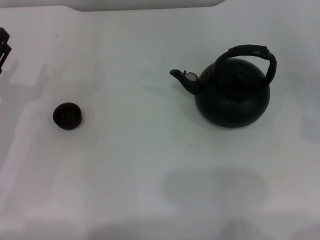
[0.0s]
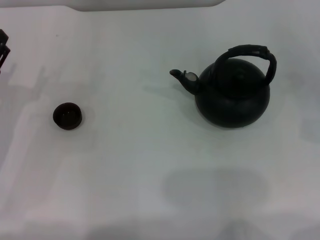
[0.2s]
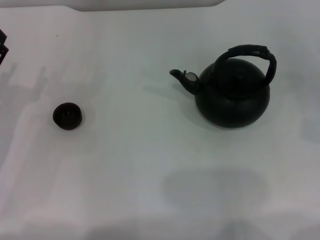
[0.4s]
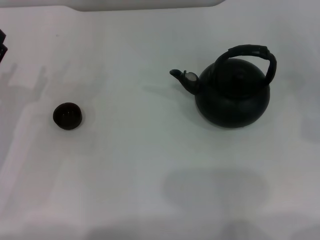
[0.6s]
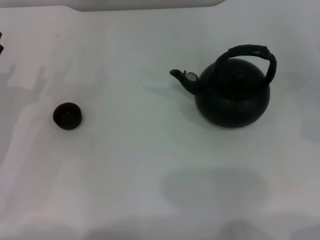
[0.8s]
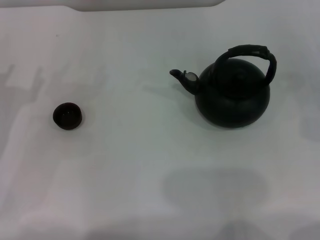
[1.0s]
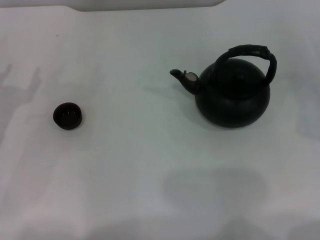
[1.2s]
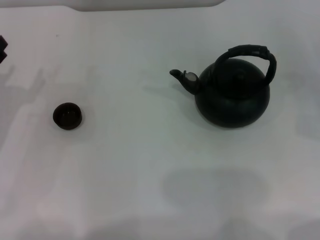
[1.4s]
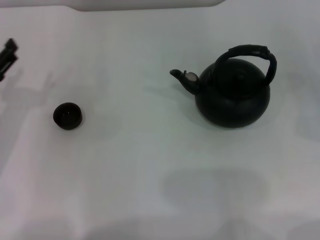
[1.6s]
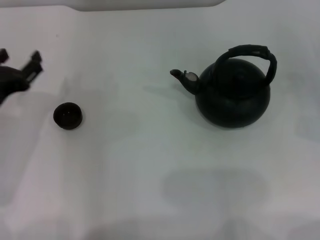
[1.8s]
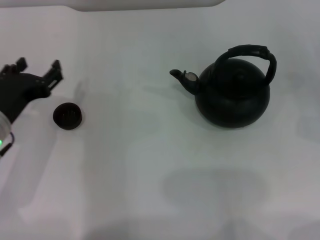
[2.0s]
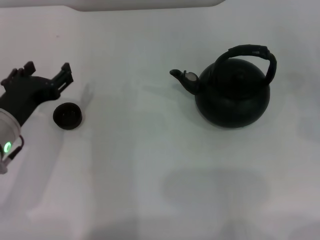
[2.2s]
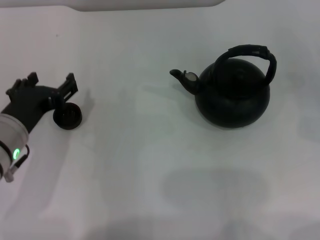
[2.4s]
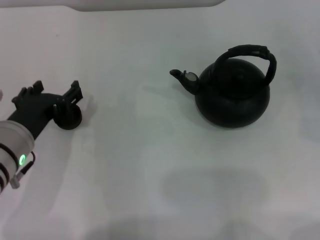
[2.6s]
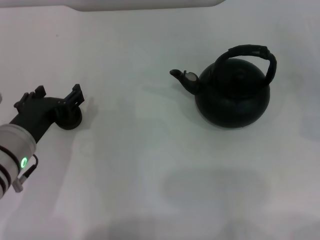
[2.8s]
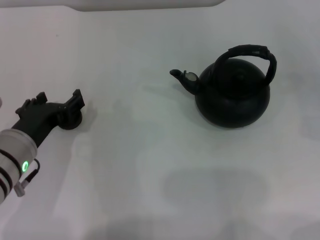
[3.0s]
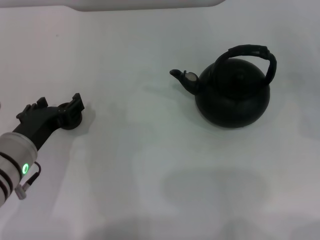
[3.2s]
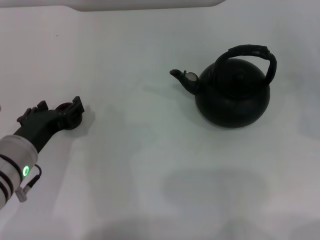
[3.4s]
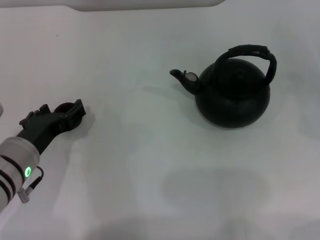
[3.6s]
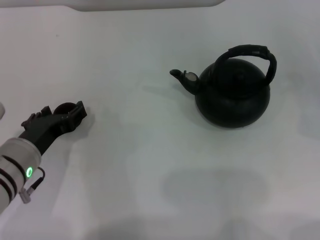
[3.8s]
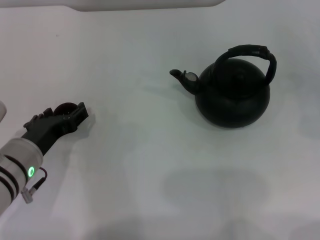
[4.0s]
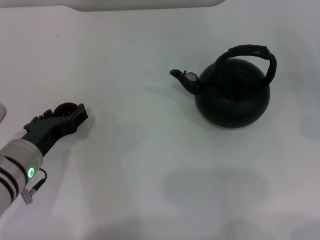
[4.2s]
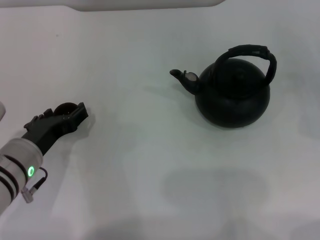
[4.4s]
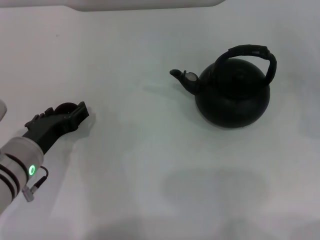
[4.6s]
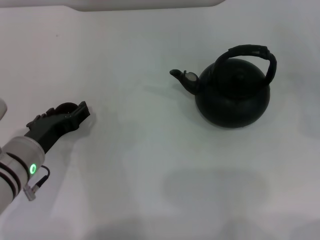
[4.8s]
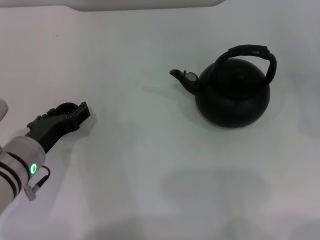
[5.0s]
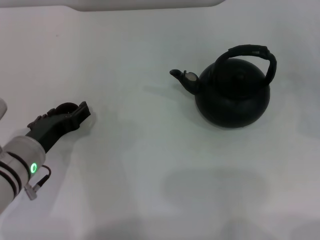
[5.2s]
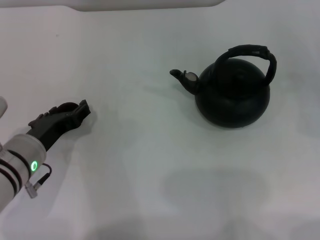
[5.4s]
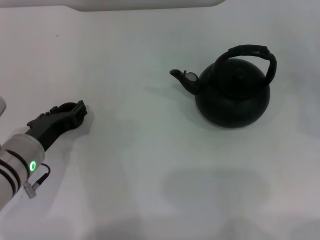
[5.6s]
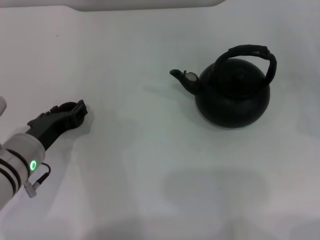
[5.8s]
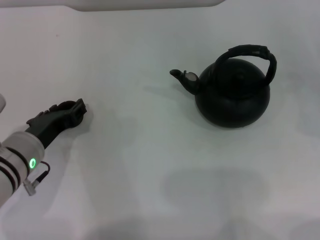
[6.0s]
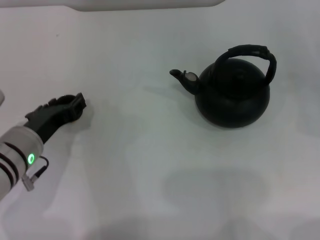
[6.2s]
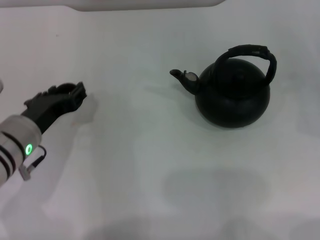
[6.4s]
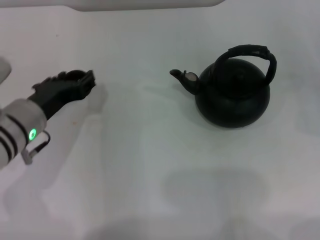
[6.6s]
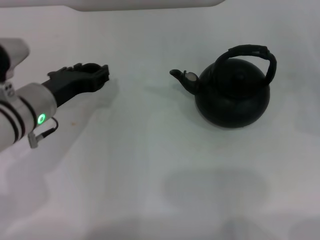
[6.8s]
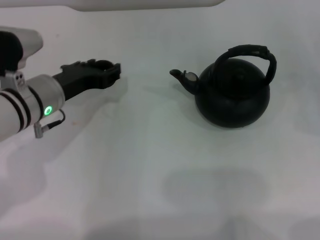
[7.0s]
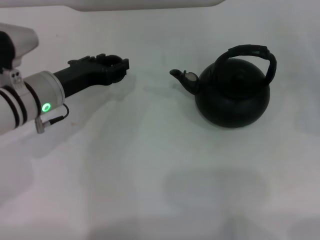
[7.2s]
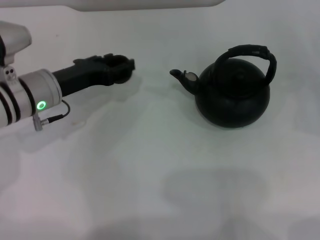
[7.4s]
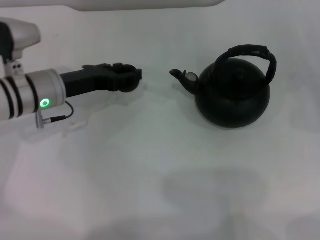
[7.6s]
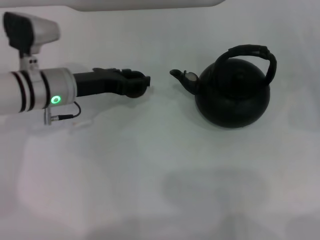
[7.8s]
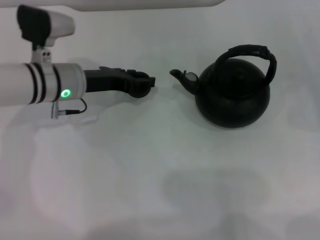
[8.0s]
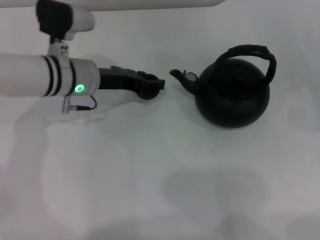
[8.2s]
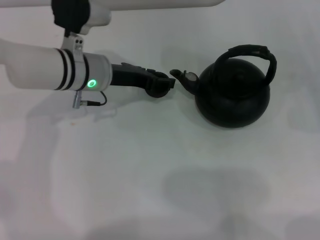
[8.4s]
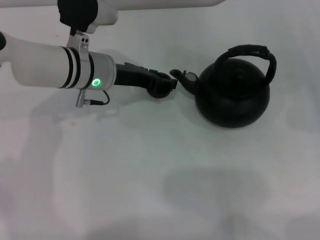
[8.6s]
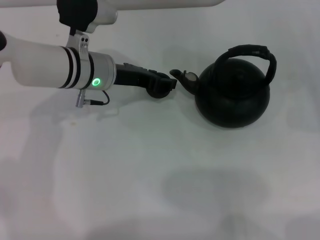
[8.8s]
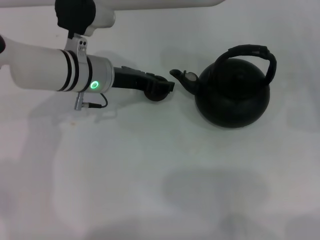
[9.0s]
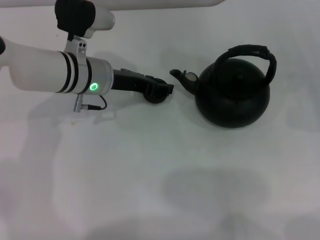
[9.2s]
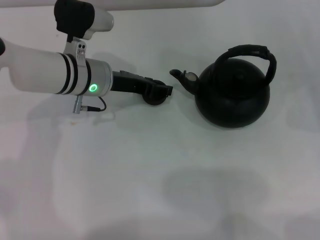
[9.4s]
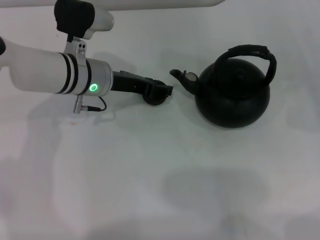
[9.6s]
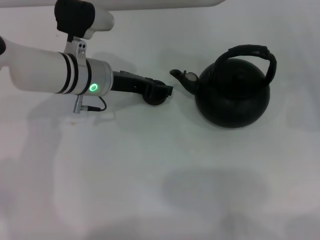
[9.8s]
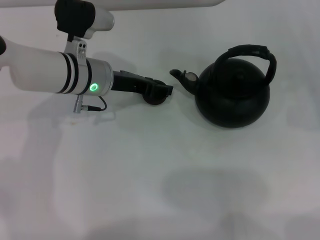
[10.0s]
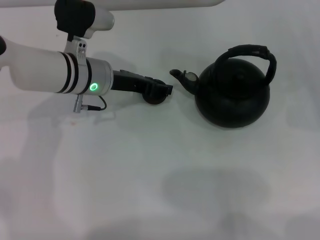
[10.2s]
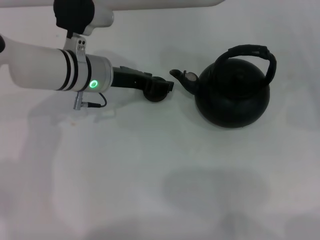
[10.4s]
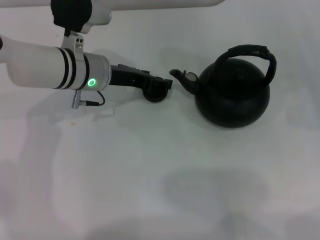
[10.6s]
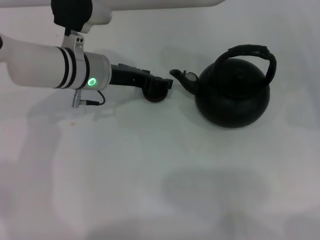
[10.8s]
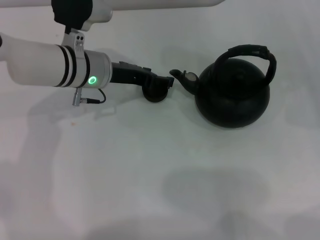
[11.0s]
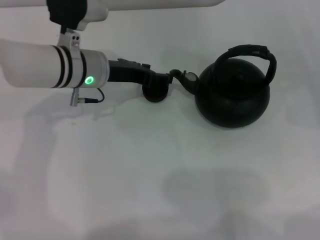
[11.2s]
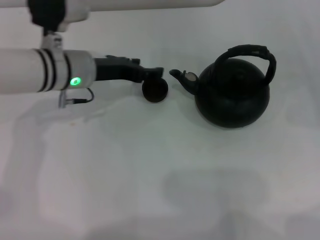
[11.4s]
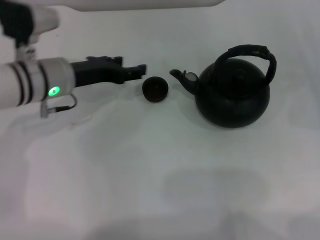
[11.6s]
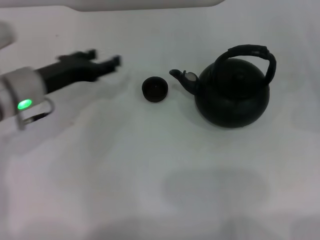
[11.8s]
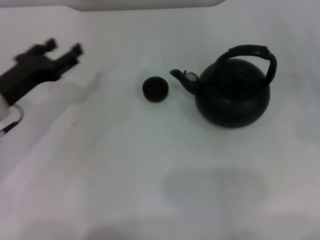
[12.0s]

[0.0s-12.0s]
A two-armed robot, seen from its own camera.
Task of the whole recording: Grasp the handle of the teapot with one hand and pour tea into the teacup.
Step, 0.0s to 6.4s: Pick up the teacup with the left gripper.
Step, 6.6s to 11.4s: Place the teacup in the center of view with the left gripper.
1.6s to 3.0s: The left gripper travels to the right by about 10 cm, and opens its fingers.
3.0s to 4.4s: The grippers move only a little.
4.4s to 6.0s: The left gripper closes.
6.0s to 7.6s: The left gripper goes approximately 10 cm forward.
7.6s to 9.0s: The left gripper heads to the right, covering roughly 10 cm.
9.0s to 10.4s: The two grippers keep their place.
10.4s to 12.0s: The left gripper shifts about 15 cm to the left and backward, and opens its fingers.

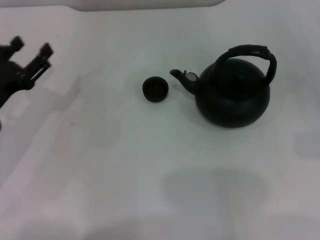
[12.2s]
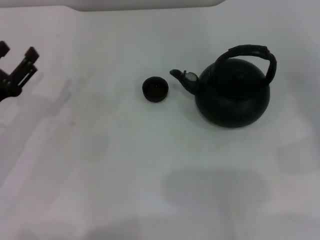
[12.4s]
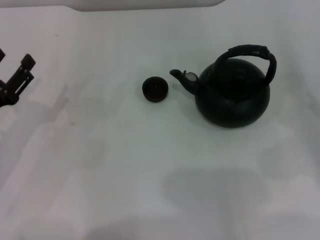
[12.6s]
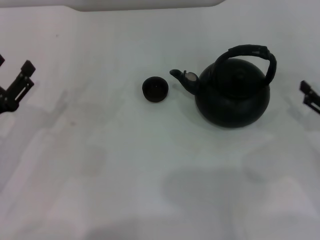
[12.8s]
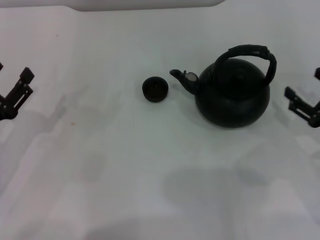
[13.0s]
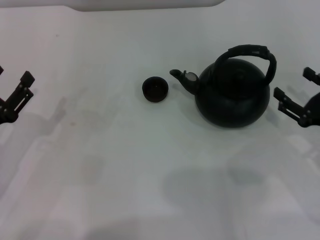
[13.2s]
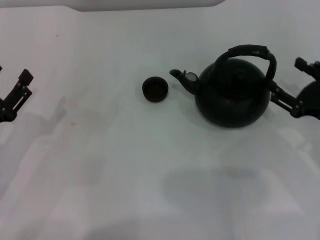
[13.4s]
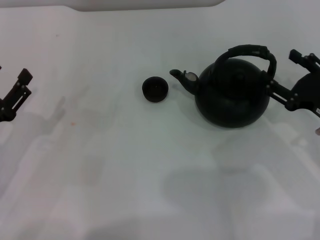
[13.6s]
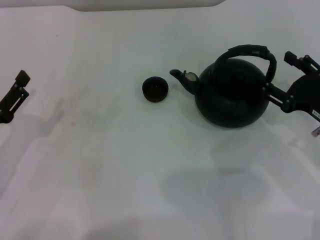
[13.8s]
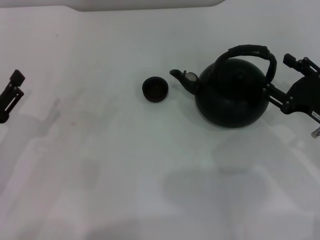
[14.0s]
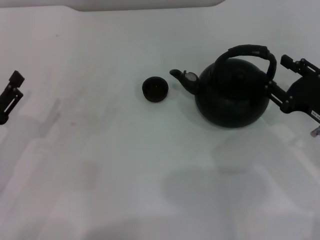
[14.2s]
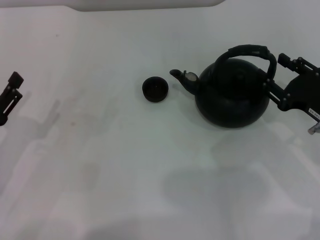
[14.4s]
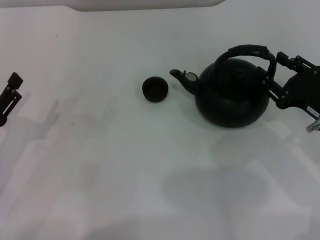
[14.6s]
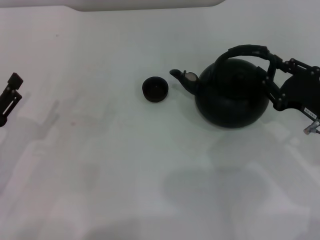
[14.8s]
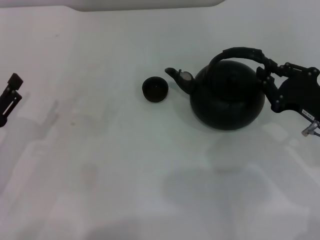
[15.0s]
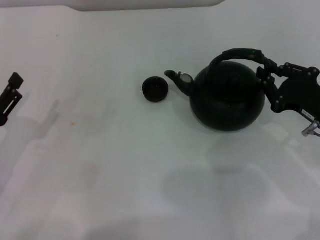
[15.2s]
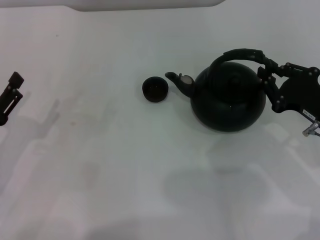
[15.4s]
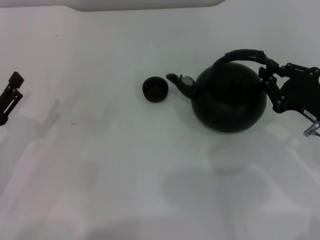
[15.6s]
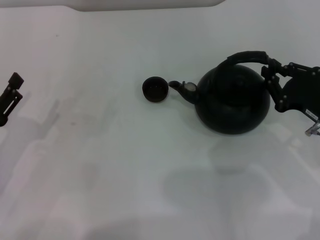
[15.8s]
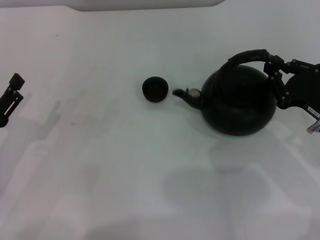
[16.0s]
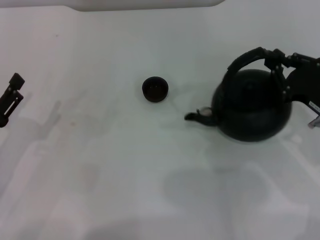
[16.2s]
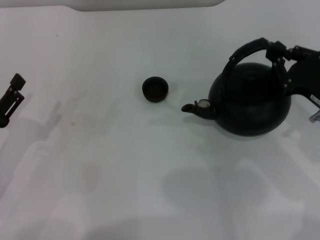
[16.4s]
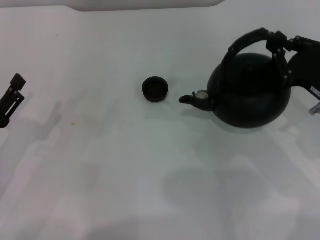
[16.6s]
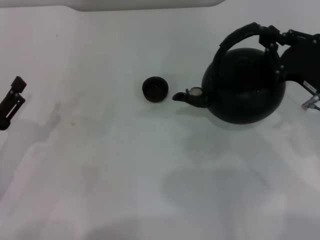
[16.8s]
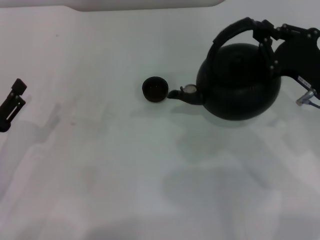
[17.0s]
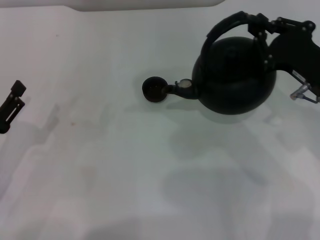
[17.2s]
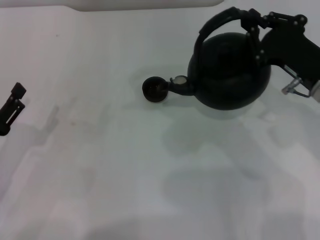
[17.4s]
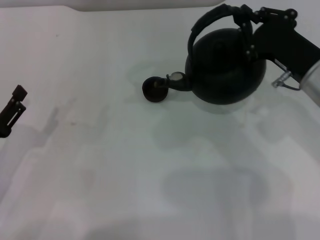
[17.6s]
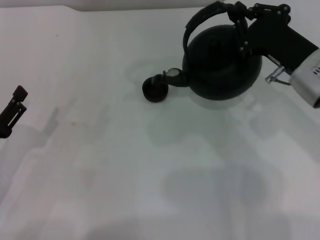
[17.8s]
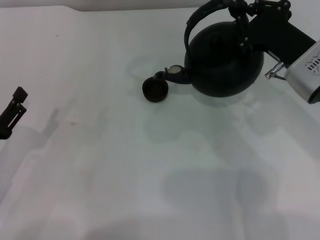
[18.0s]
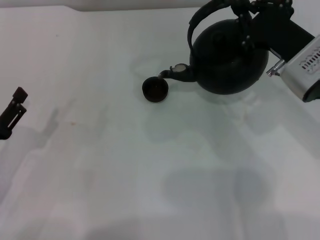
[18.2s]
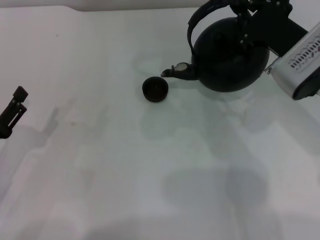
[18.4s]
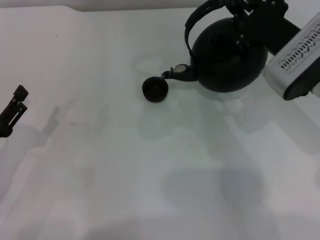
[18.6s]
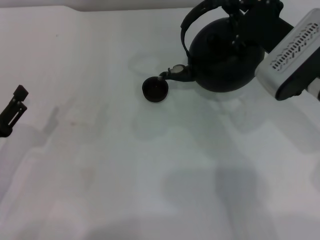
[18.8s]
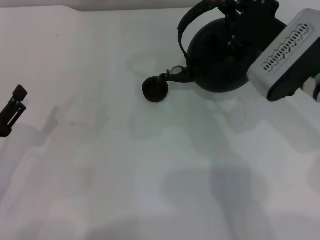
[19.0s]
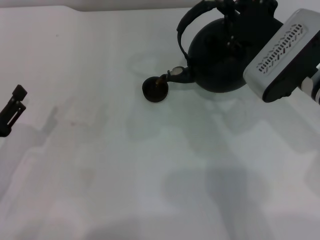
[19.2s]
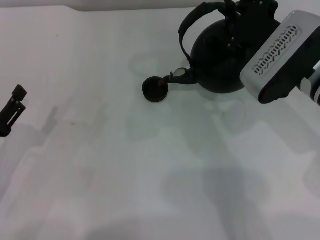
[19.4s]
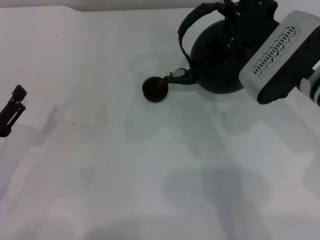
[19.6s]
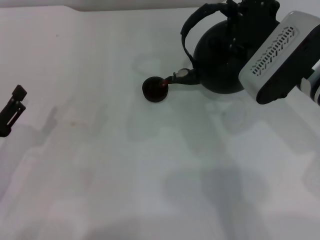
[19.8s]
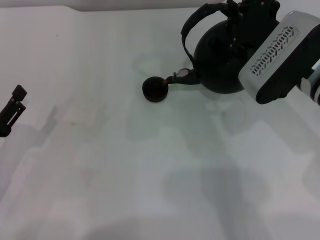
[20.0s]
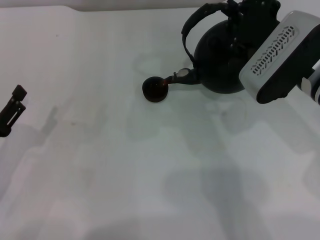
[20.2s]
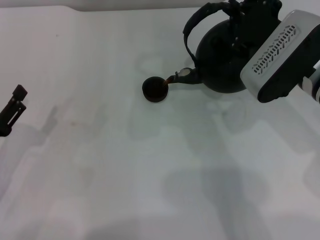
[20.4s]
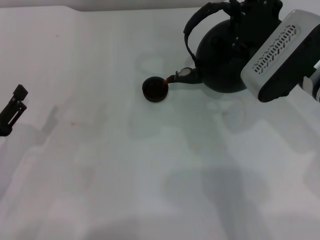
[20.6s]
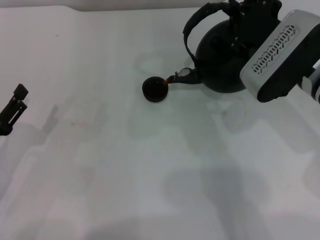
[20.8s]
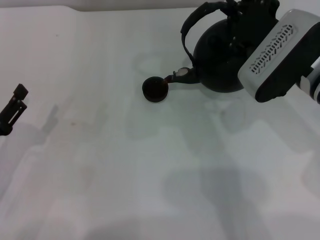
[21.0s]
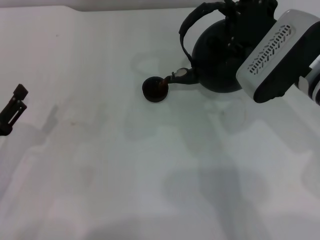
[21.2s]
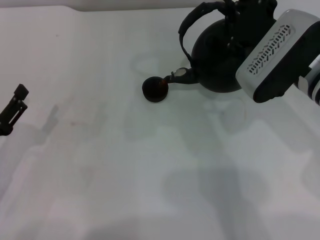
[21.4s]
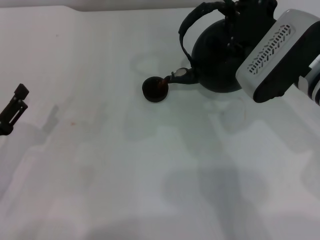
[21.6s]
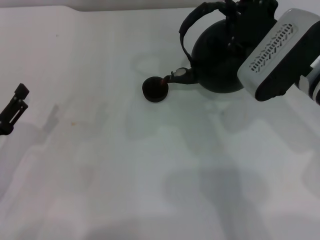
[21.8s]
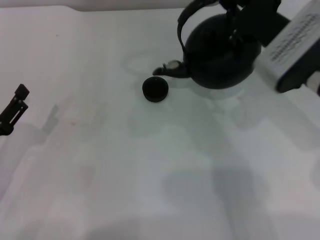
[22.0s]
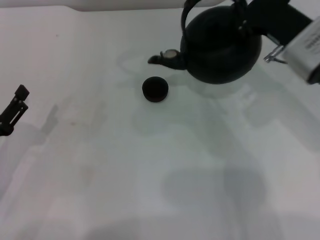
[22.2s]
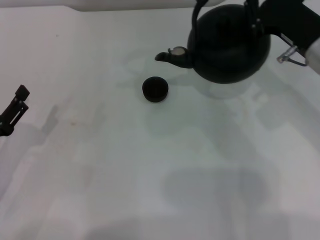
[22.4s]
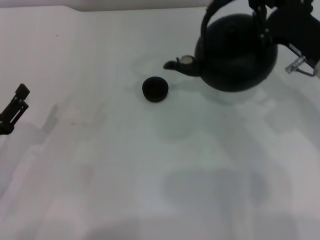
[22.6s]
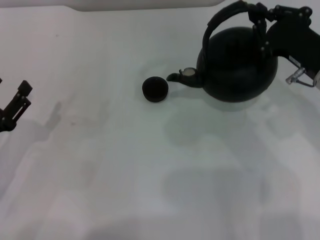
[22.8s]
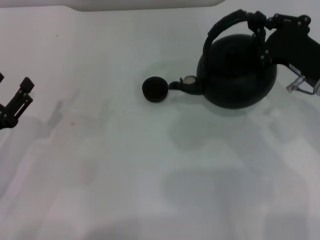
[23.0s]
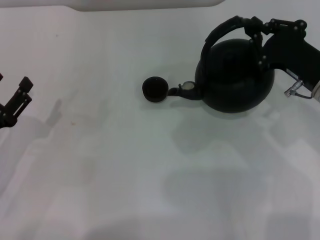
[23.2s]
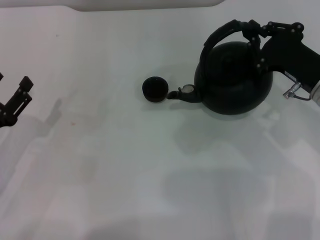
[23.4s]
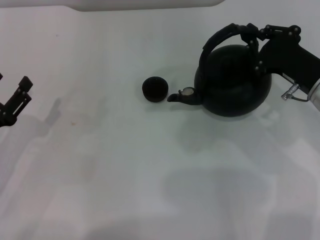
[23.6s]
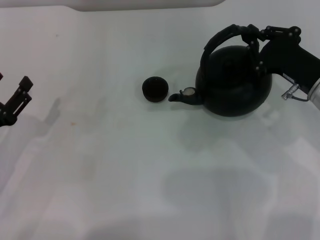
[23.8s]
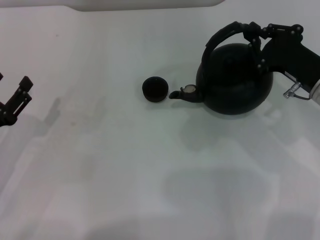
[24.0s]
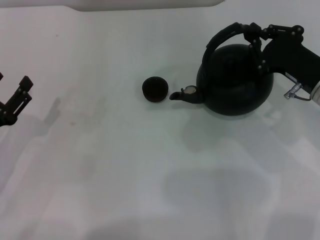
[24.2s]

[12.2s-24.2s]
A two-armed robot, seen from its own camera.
Task of the whole recording: Grasp the handle of the teapot with one hand and pour tea into the teacup.
Step, 12.2s to 16.8s: Pick up the teapot with the right gripper.
Step, 17.0s to 22.2s: Pour tea into the teacup with the right gripper.
12.2s to 13.8s: The left gripper goes some 5 cm backward. Meanwhile the right gripper heads to the left, covering some 15 cm.
13.8s to 15.2s: The right gripper closes.
15.2s to 16.6s: The grippers make only small movements.
16.6s to 18.2s: The right gripper moves to the left, some 5 cm.
18.2s to 19.8s: The grippers make only small movements.
19.8s to 21.2s: Both grippers stay about where they are.
21.2s to 22.6s: The right gripper heads to the right, covering approximately 5 cm.
22.6s to 24.2s: The right gripper moves roughly 5 cm.
